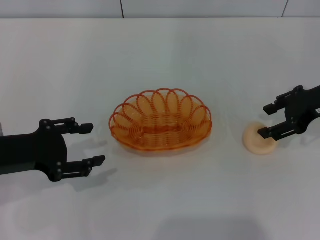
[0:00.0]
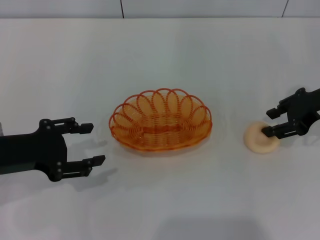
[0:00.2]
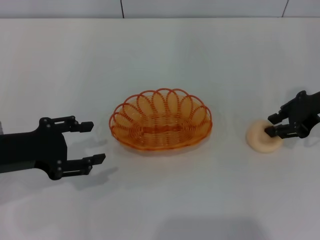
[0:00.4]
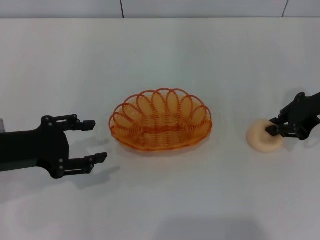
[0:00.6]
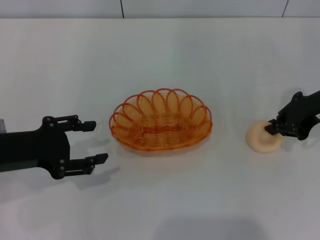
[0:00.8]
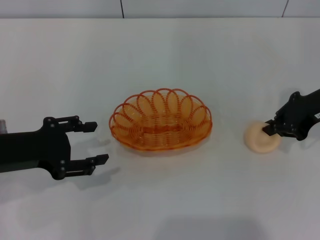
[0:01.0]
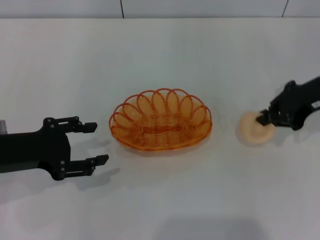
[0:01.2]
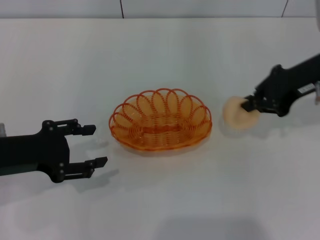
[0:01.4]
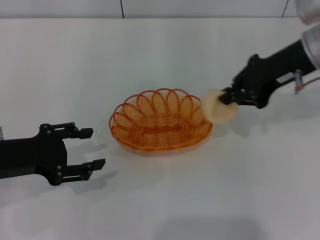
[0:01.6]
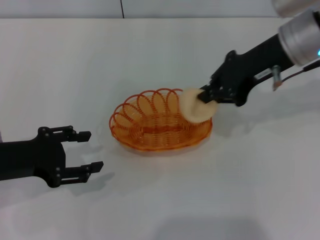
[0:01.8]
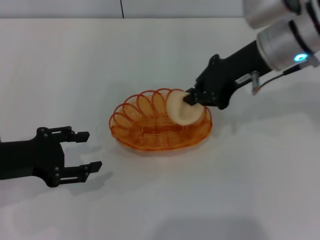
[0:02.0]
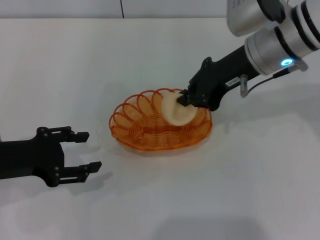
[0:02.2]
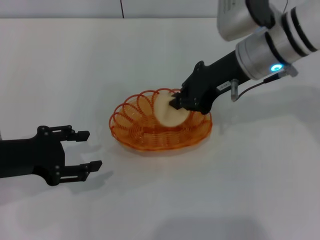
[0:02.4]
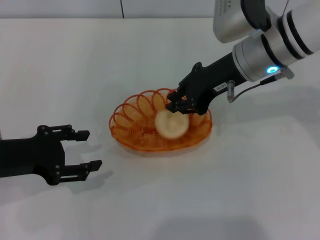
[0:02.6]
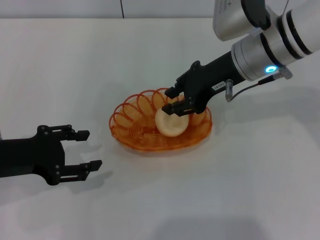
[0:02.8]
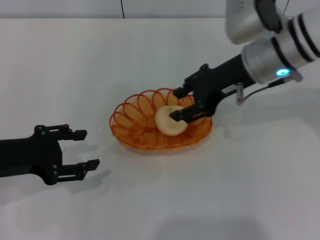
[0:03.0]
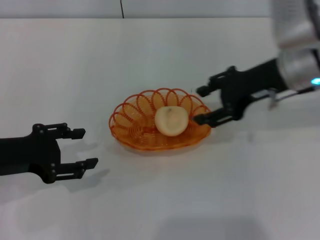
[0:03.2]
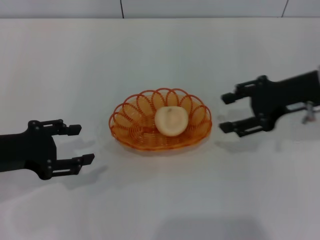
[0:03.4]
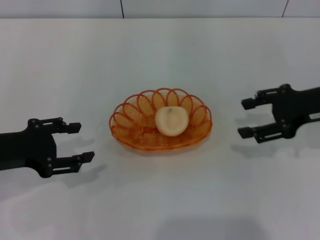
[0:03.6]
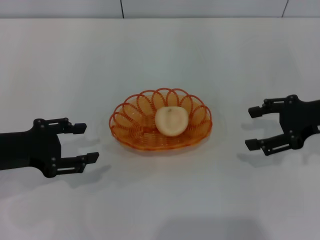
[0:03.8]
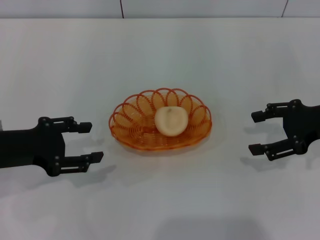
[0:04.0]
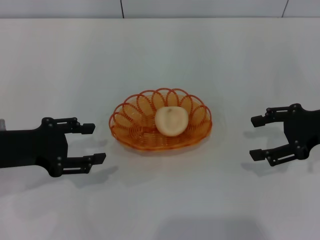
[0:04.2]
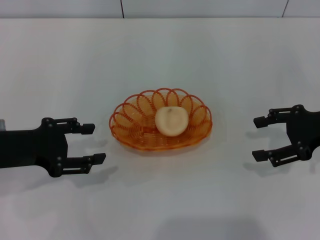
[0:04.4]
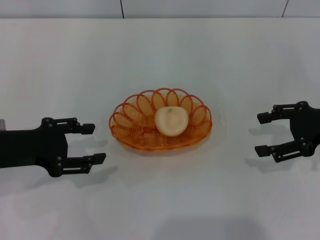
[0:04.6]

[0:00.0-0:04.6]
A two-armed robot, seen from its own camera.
Step, 0:01.6 to 0:03.6: Place the egg yolk pastry into the basket with the right gripper.
0:00.0 to 0:01.6: The right gripper shifts roughly 10 cm to the left and upward, and closes its fingers.
0:01.6 to 0:03.0: The right gripper travels to the left by about 5 cm, and opens.
0:03.0 to 0:04.6: The right gripper goes about 15 cm to the right, and opens up.
